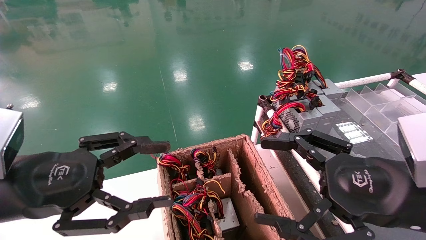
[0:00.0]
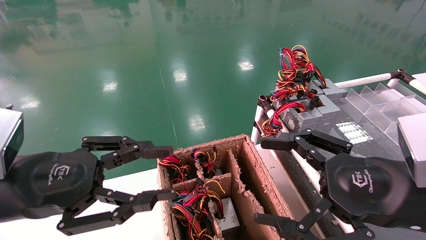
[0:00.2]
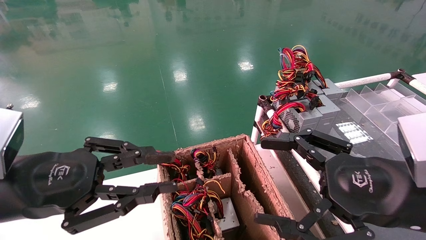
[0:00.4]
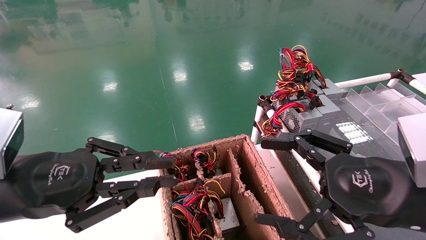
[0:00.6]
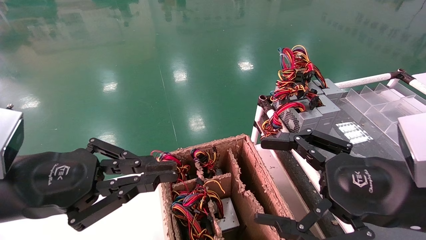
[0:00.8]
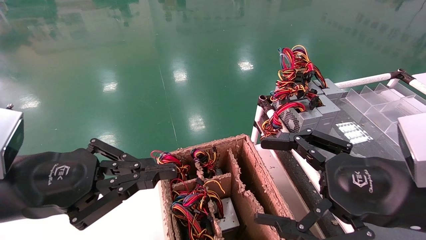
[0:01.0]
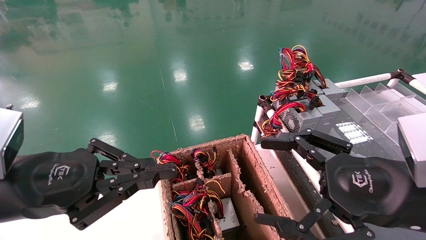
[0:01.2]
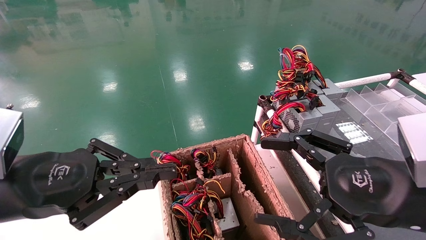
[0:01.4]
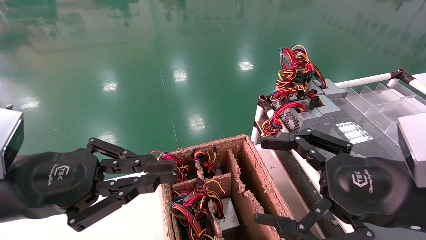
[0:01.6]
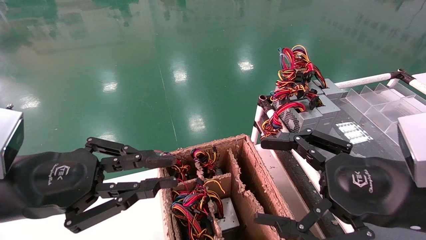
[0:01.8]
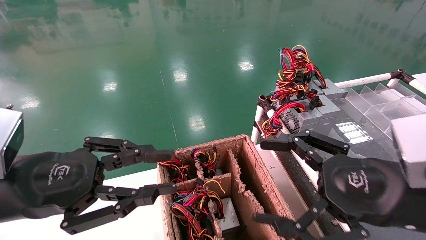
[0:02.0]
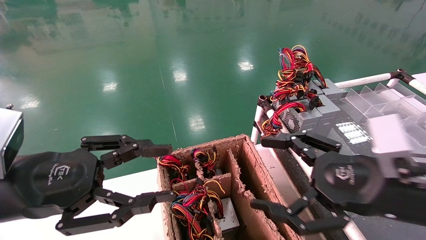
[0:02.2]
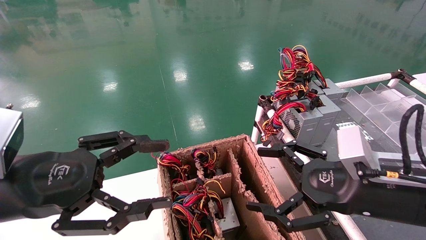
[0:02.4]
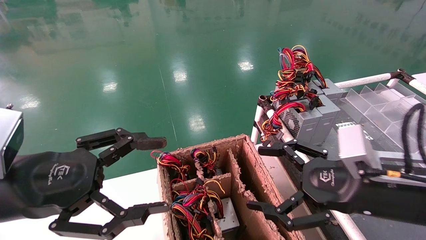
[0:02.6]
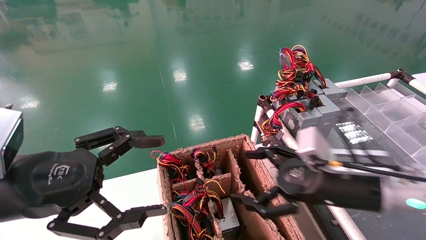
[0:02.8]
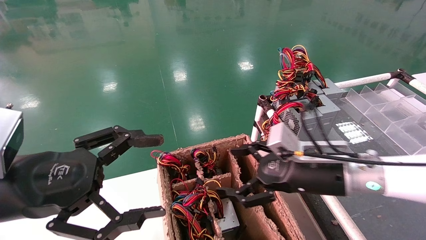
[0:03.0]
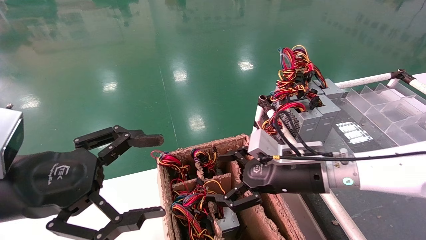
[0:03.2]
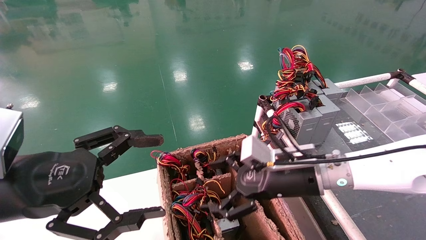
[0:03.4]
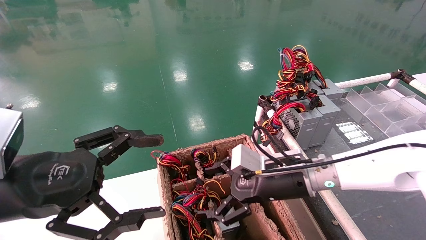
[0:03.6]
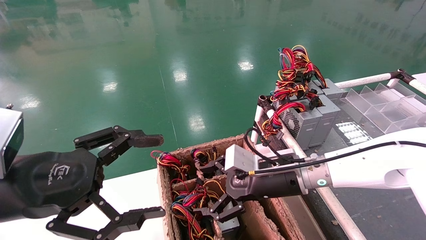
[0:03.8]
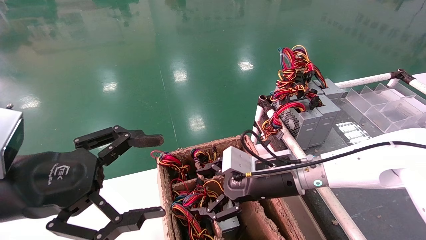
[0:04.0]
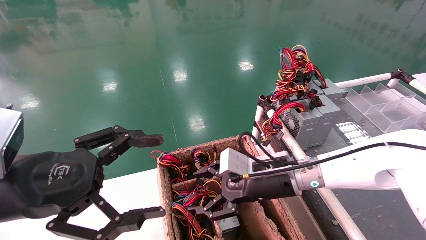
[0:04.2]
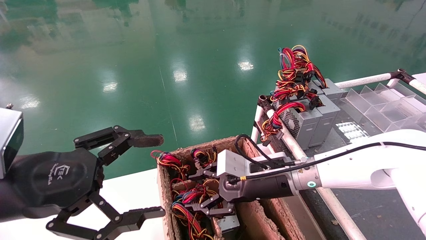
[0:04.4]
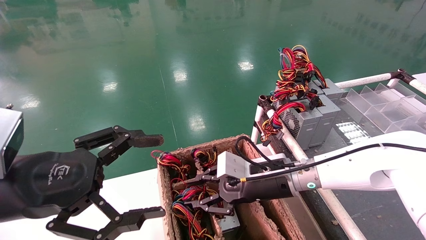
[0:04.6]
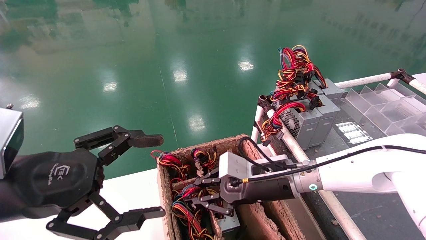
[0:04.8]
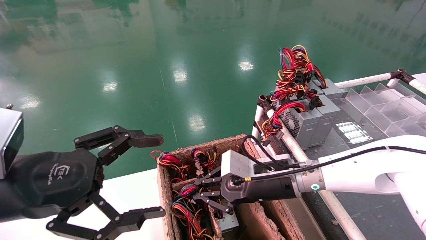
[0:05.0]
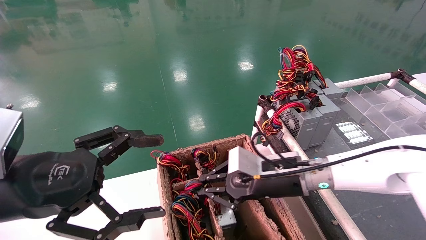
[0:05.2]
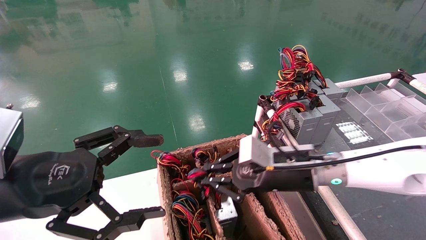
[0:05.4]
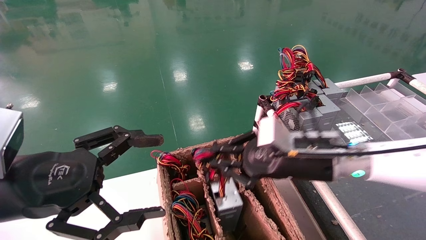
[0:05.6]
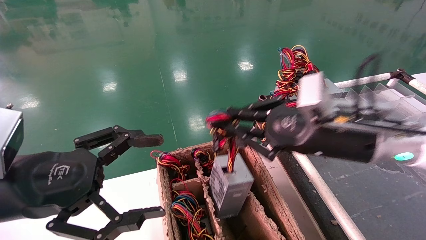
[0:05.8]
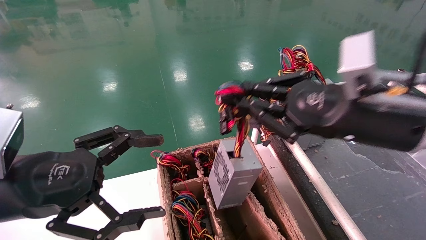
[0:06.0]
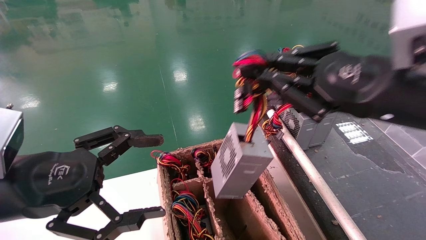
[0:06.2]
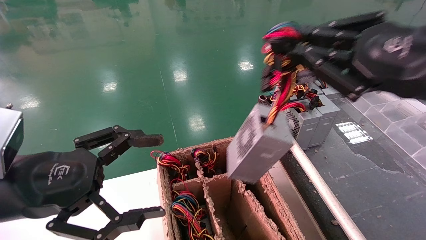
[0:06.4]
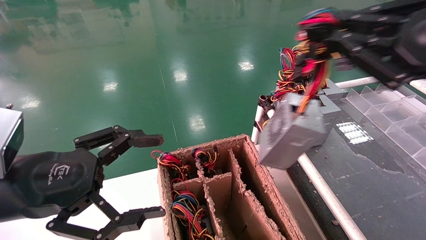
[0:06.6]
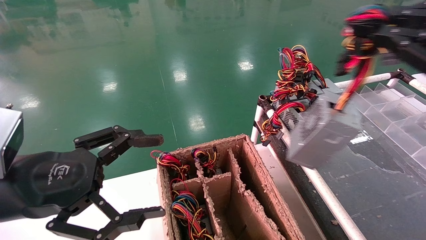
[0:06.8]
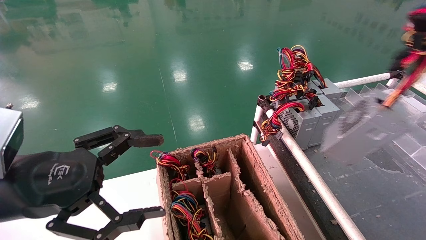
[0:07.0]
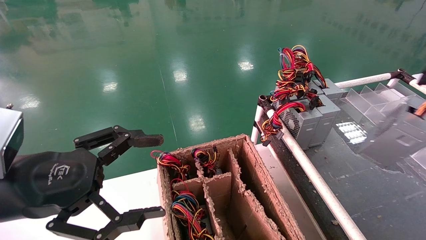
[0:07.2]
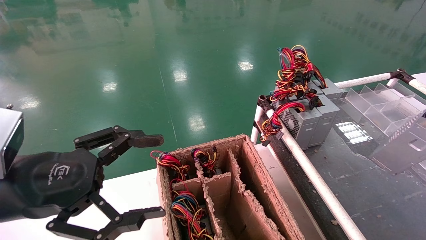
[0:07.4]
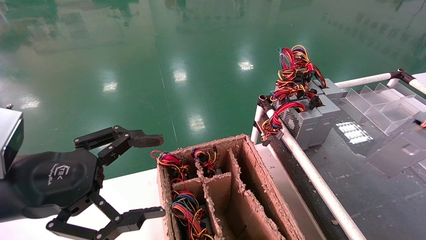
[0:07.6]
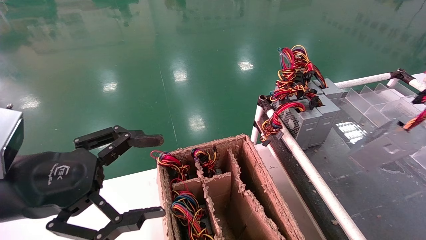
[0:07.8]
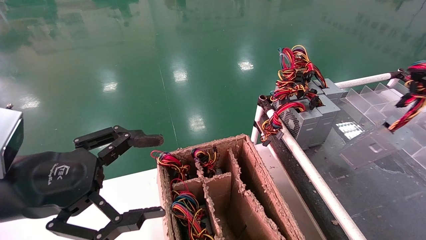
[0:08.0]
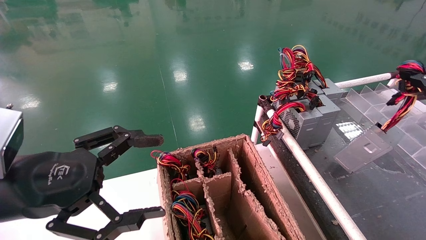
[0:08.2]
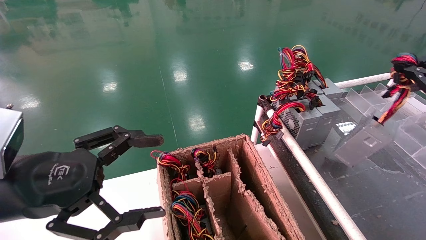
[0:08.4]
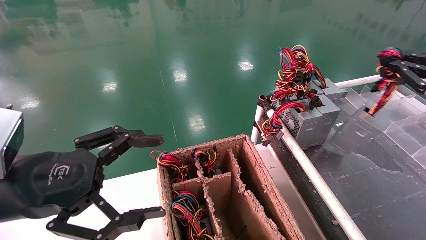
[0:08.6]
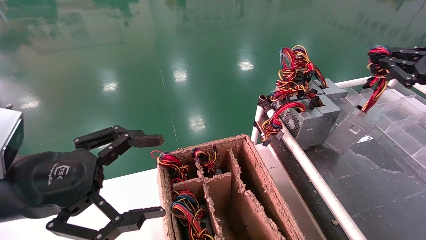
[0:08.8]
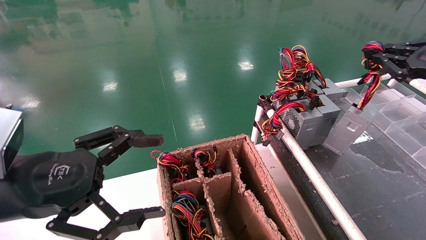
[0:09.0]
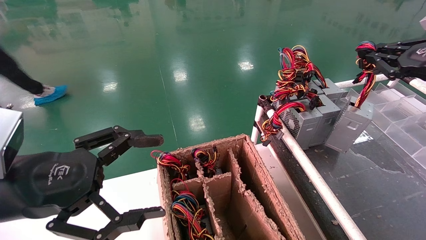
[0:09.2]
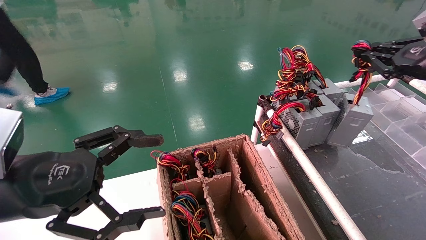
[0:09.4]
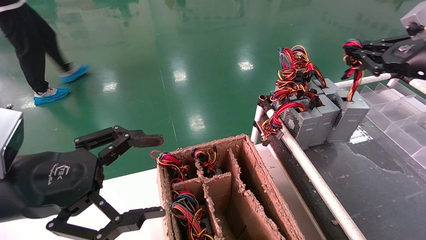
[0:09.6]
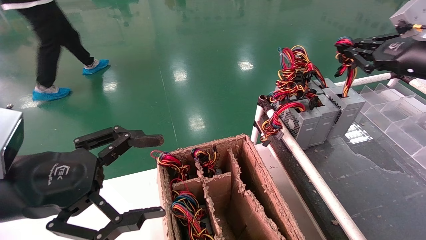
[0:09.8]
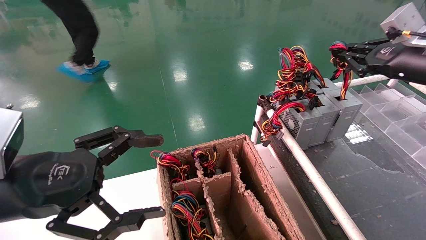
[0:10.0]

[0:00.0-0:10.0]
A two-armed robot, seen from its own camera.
Step, 0:01.0 to 0:05.0: Grab and lift the power supply from the large box.
0:00.0 to 0:01.4: The left gripper closes.
0:01.4 to 0:02.8: The right gripper moves forward and downward, some 10 cm; the left gripper opens its fingers.
0:02.8 to 0:04.2: The right gripper travels to the left and forward by approximately 10 cm.
0:04.2 to 0:05.8: The right gripper goes about 15 cm upward, to the right and backward, and closes its fingers.
0:05.8 to 0:07.2: The right gripper travels to the right, backward and upward by approximately 30 cm.
0:07.2 to 0:08.6: The right gripper shifts some 15 cm forward.
0:08.6 to 0:10.0: The right gripper heads forward, covering some 10 cm.

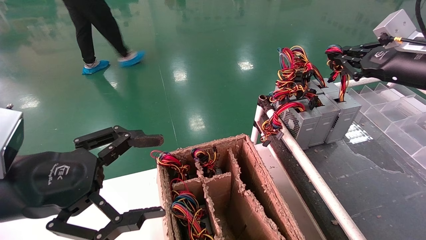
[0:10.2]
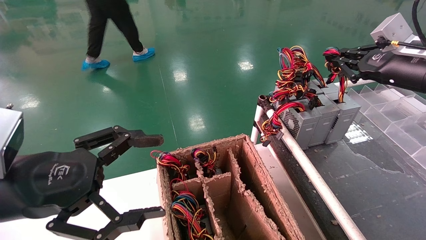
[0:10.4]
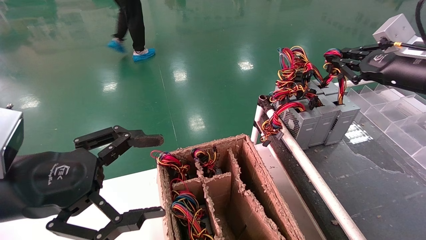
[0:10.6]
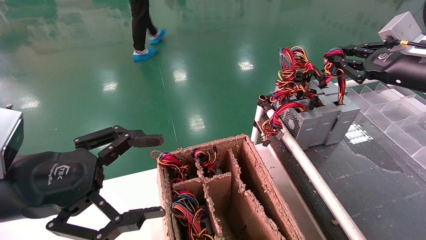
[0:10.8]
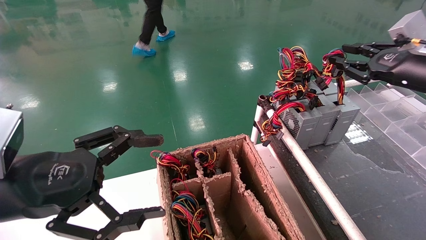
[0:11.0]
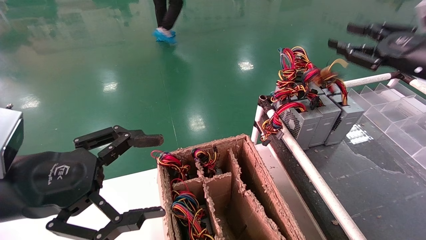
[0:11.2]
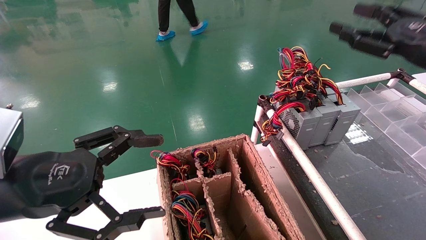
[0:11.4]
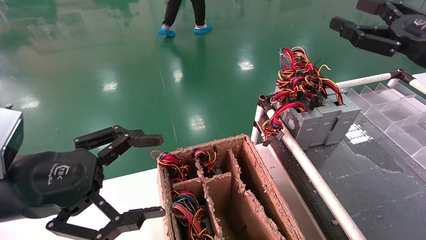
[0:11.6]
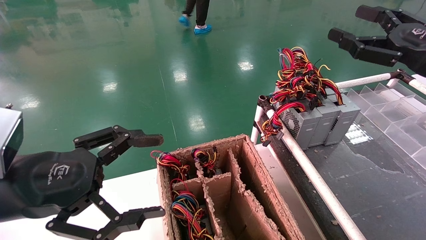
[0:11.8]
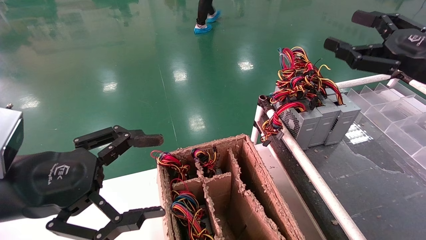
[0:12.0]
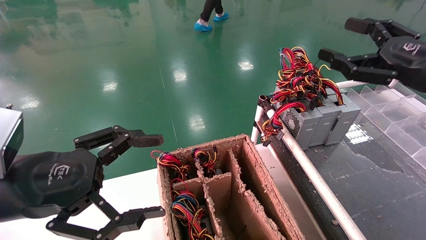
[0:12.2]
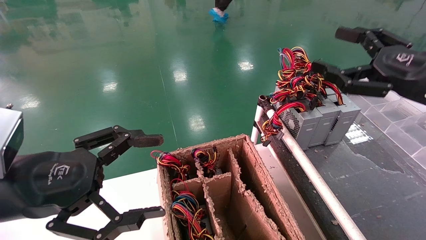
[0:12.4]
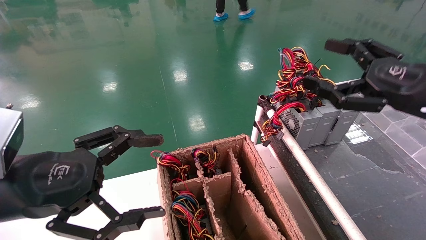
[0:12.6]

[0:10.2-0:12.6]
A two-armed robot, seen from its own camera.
0:10.2 to 0:11.4: The right gripper changes place by approximately 5 cm, and opens.
0:11.4 to 0:12.6: The right gripper travels backward by about 5 cm, and opens up.

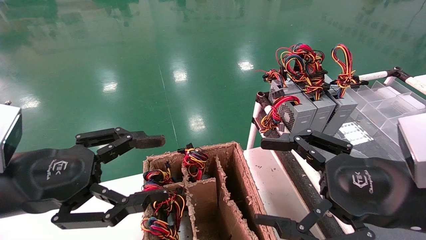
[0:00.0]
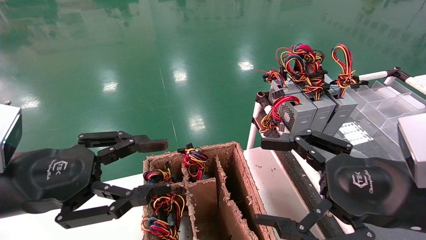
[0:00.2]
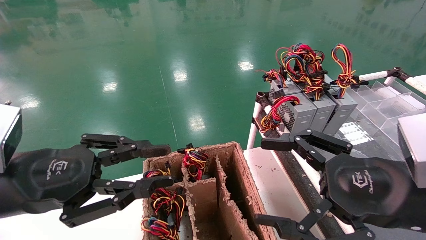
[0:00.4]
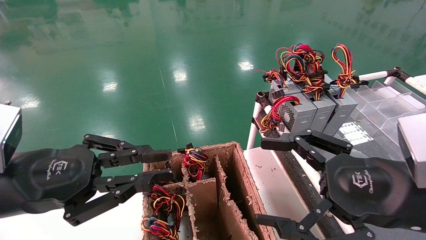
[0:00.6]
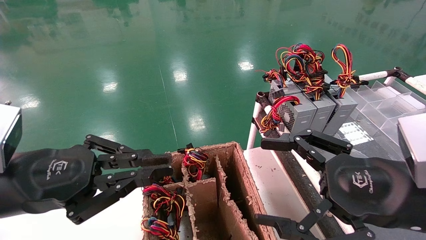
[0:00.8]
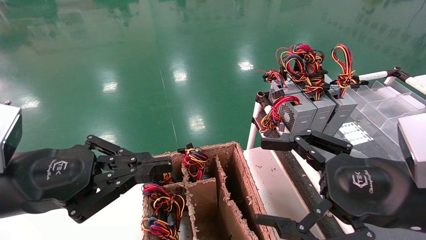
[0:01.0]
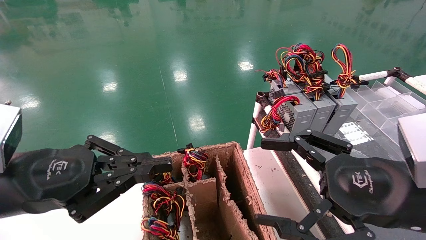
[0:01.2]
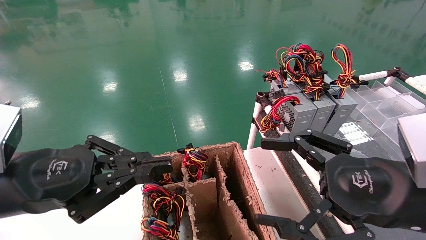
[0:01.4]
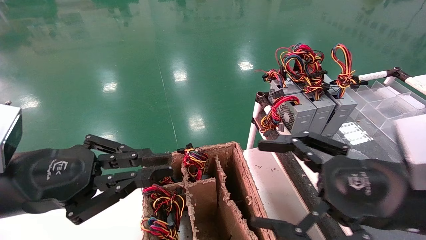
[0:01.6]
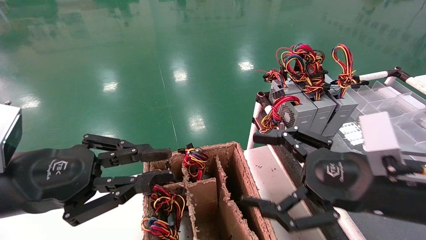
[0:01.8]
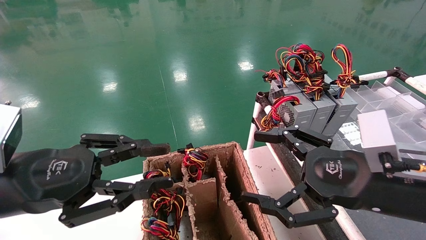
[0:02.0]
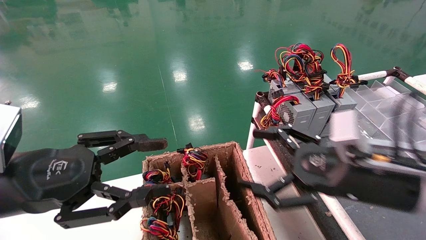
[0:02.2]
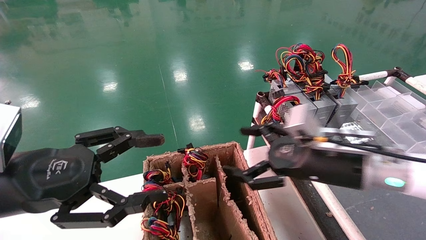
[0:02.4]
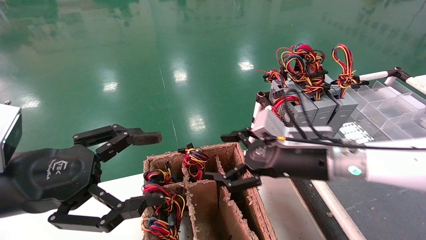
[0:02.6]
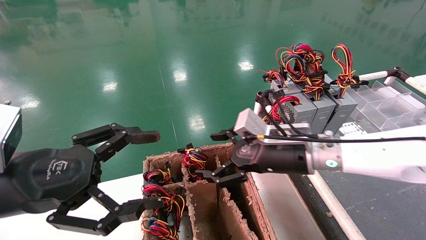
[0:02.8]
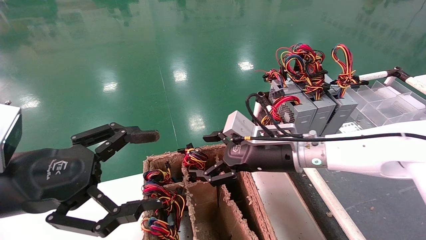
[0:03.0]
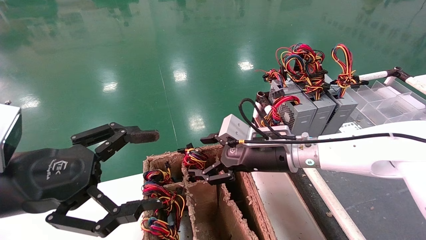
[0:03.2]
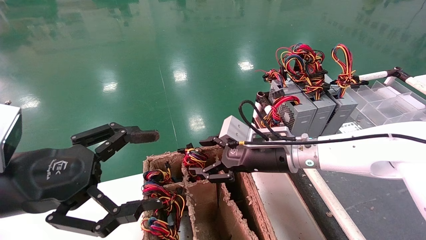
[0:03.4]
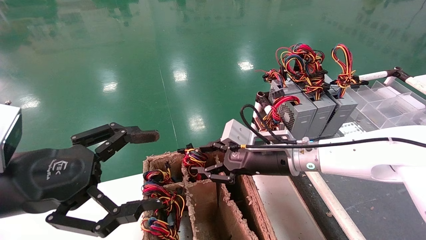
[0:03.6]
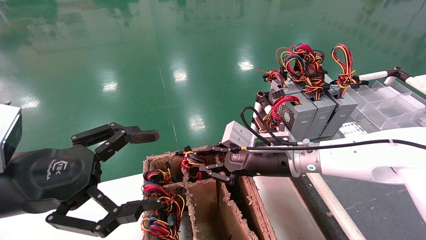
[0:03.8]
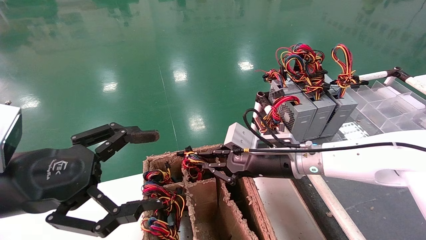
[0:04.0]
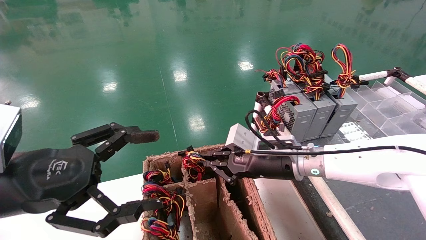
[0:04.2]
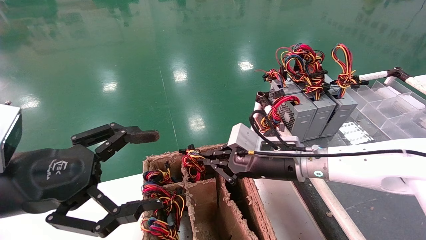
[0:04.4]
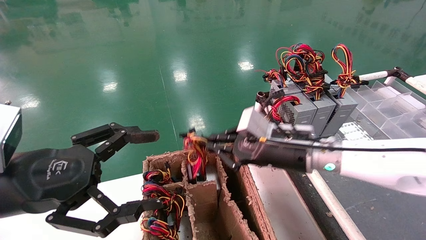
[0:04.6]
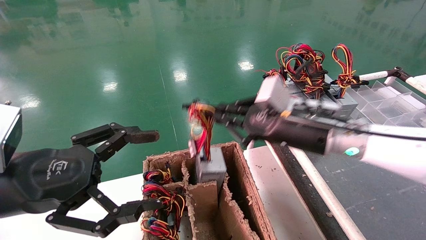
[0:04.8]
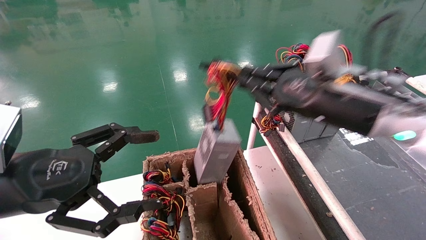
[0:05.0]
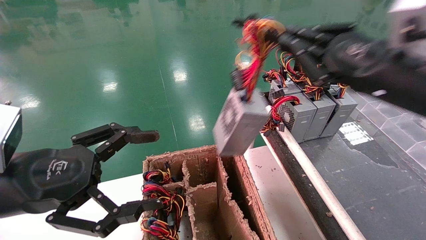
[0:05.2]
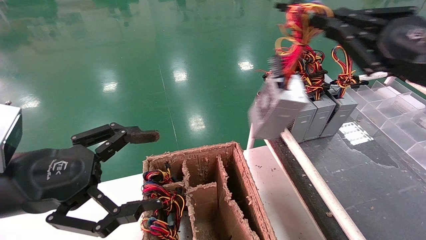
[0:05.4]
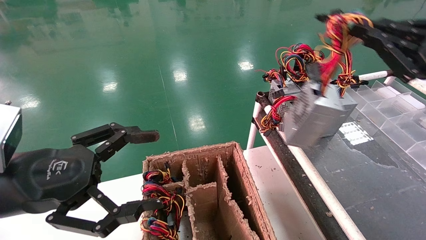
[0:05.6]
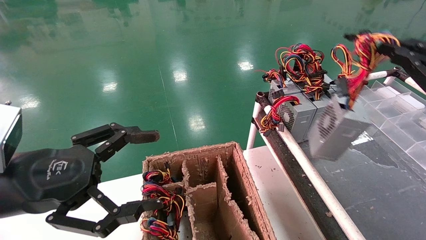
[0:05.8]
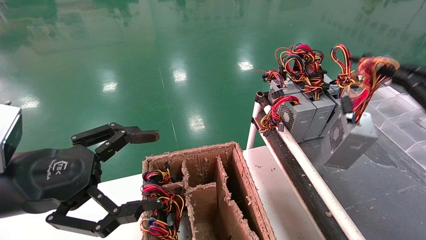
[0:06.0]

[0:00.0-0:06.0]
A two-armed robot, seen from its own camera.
Step, 0:01.0 to 0:04.2: Grab and lift the power supply from the large box.
0:00.0 to 0:01.6: The left gripper closes.
0:01.6 to 0:03.0: The right gripper goes about 20 cm forward and to the left; the left gripper opens.
0:03.0 to 0:04.4: The right gripper closes.
0:04.4 to 0:06.0: The right gripper moves to the right, roughly 30 cm.
